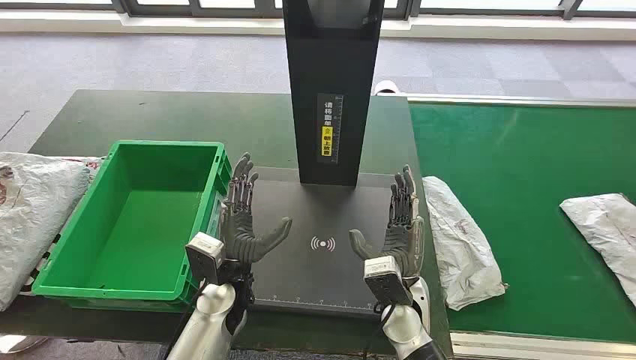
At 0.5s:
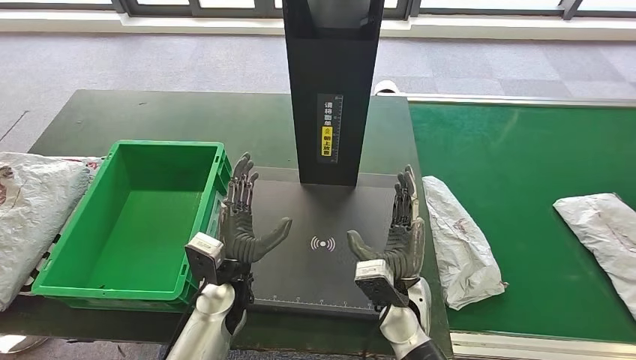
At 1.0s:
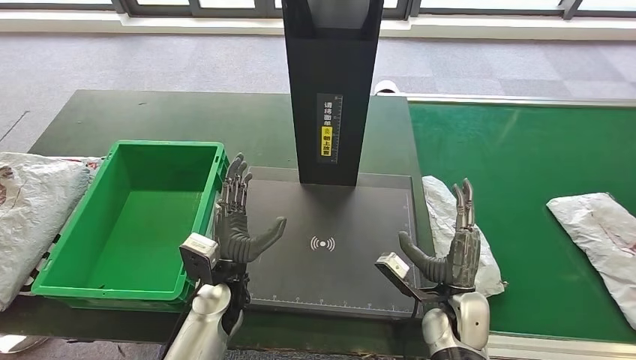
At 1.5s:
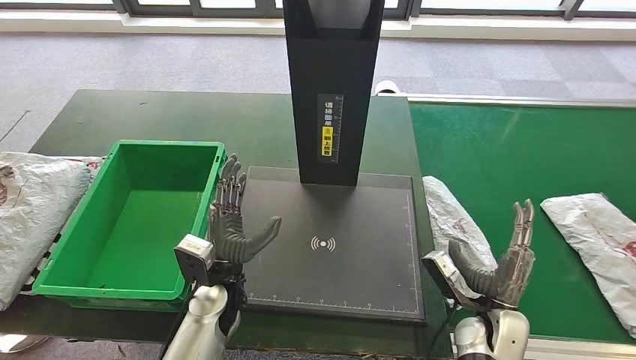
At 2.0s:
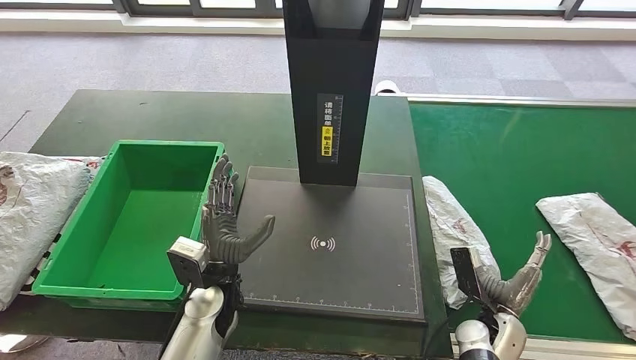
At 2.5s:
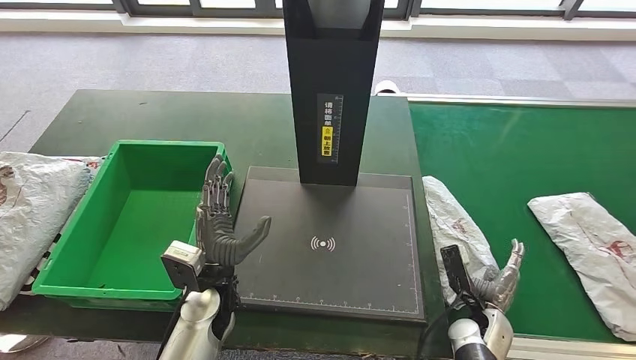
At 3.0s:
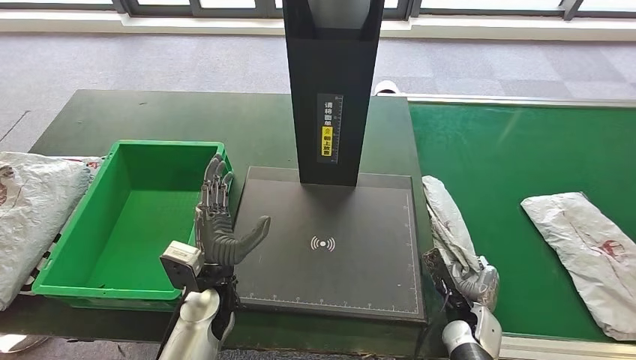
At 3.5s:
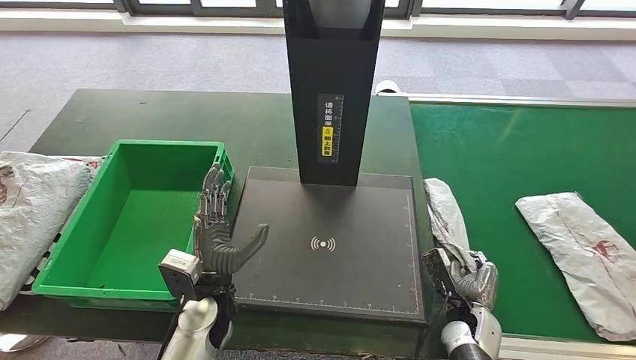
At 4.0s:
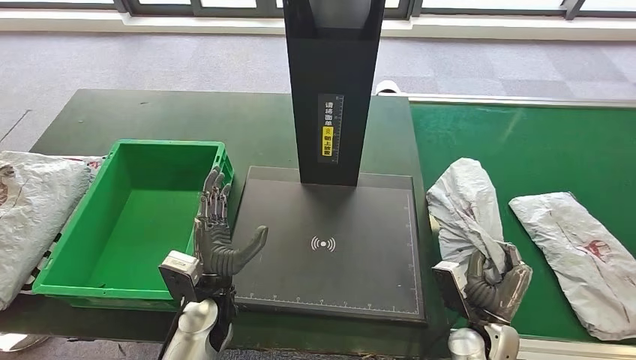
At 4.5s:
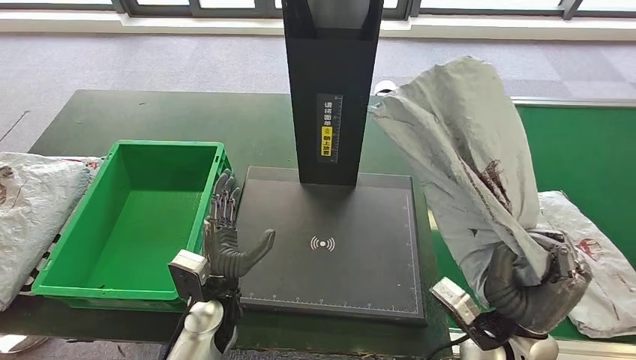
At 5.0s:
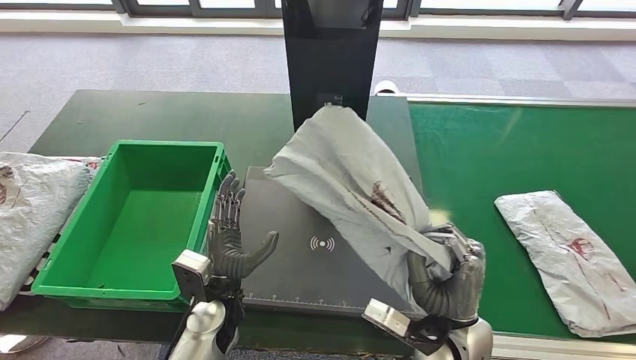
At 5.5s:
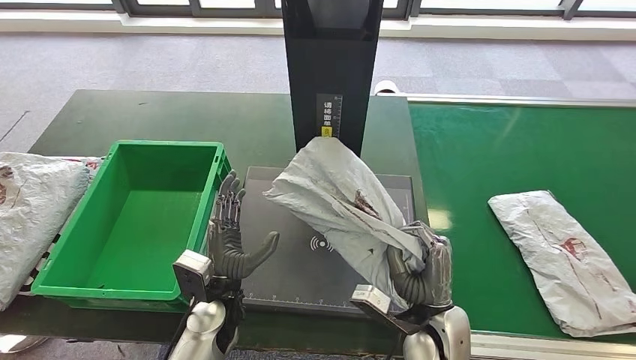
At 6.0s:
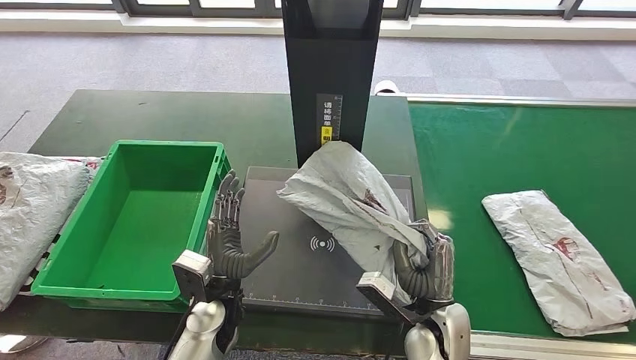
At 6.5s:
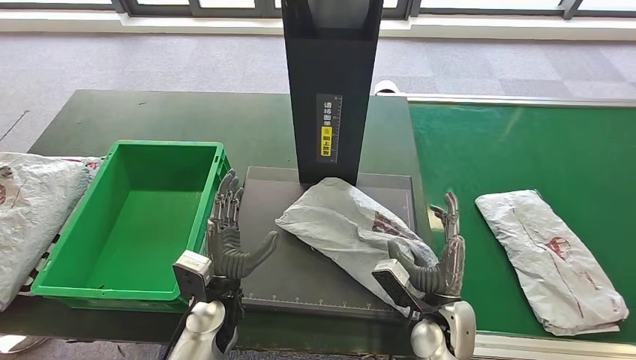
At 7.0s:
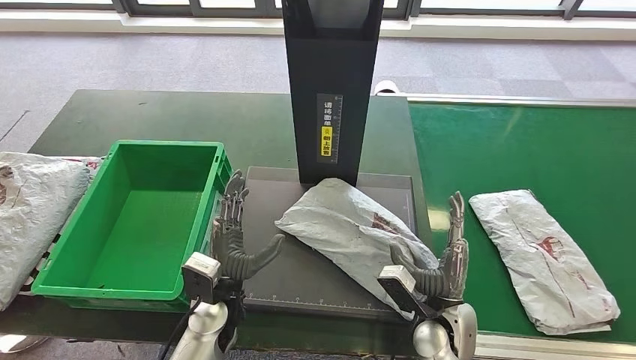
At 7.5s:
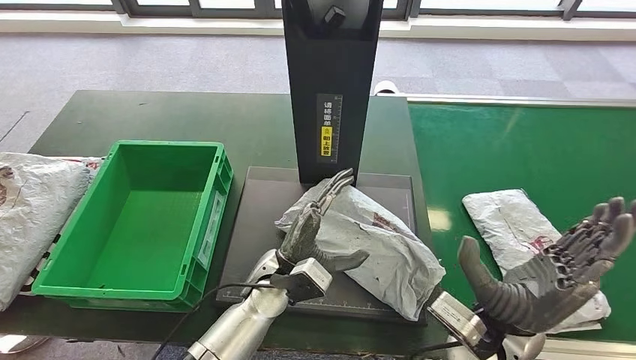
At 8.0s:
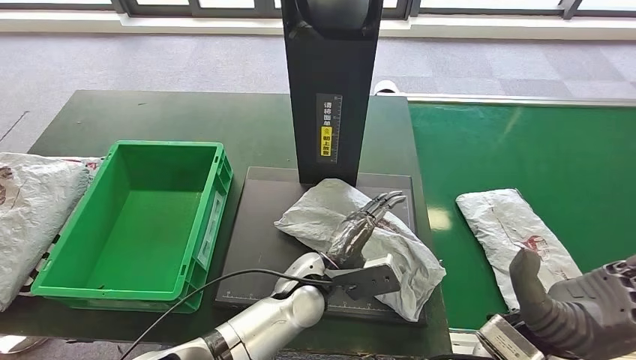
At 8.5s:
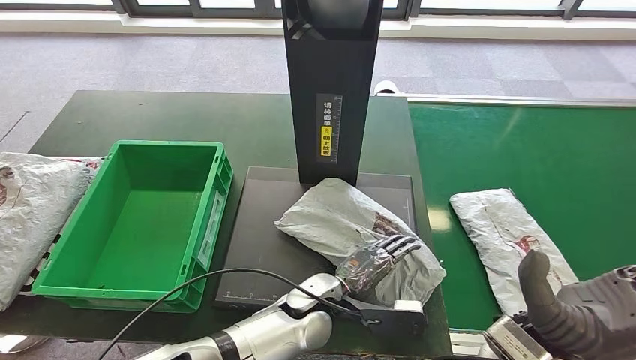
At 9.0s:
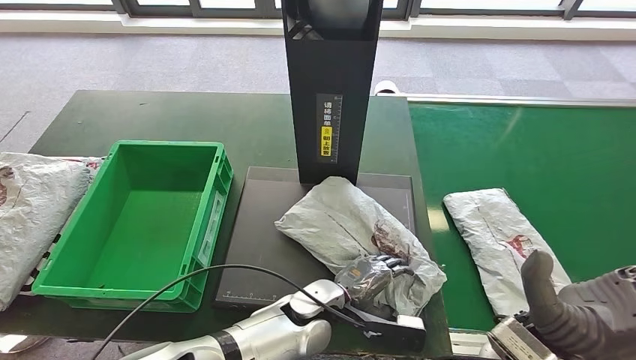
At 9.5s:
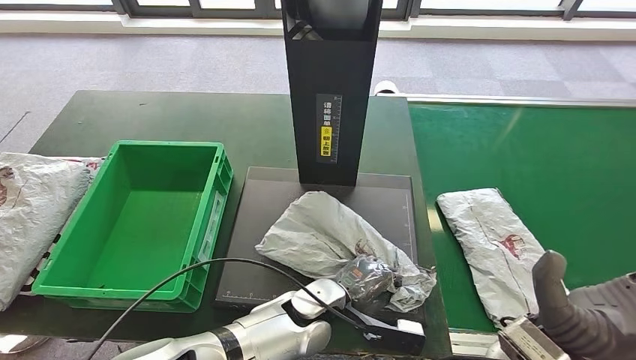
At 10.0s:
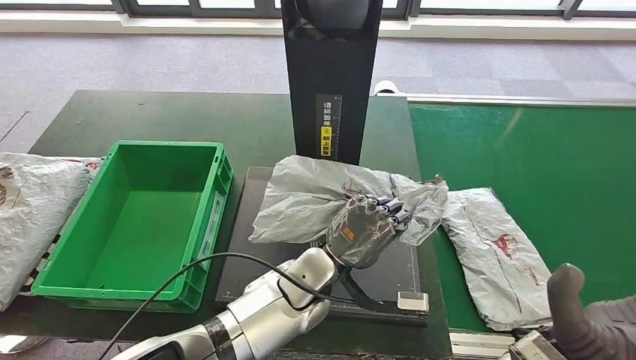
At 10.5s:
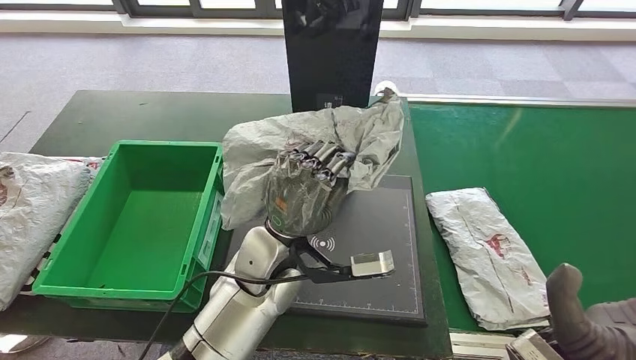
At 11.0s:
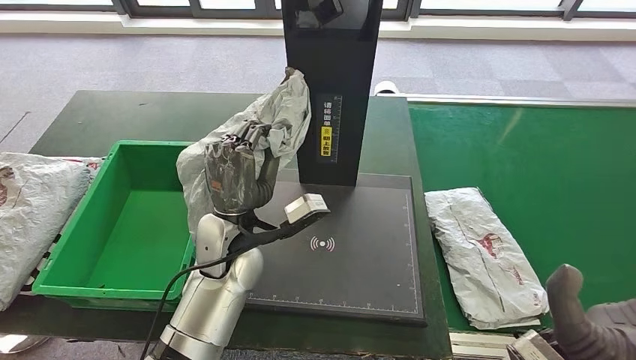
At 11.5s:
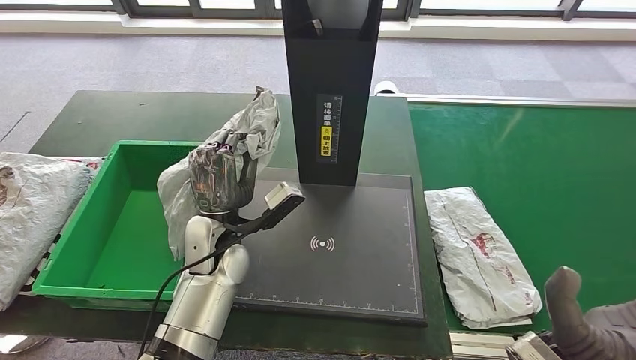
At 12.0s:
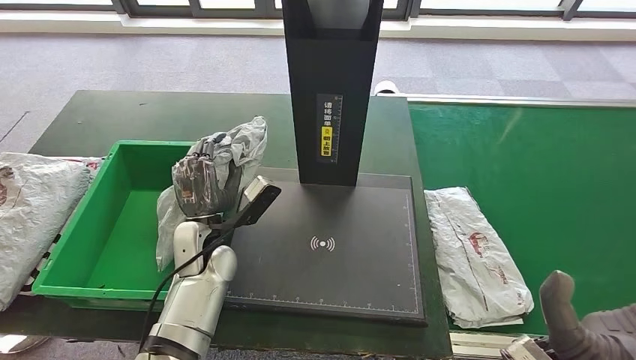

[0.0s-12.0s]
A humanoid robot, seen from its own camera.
Step, 0.0s to 2.0s: Pick up the parcel from the conveyor belt.
Step, 2.5s to 4.5s: Take the parcel off the conveyor belt.
Step, 5.0s to 7.0s: Place the parcel onto the inbound machine.
Step, 7.5s to 10.0s: Pick up the parcel from the inbound machine.

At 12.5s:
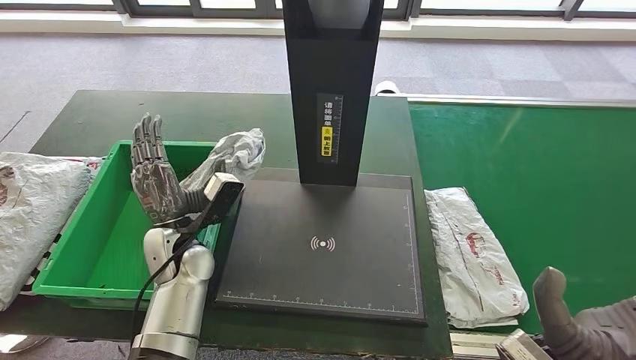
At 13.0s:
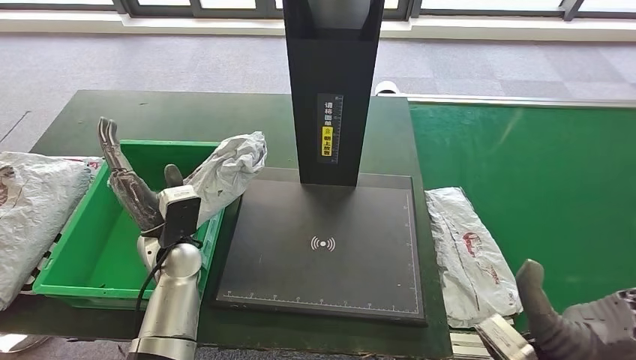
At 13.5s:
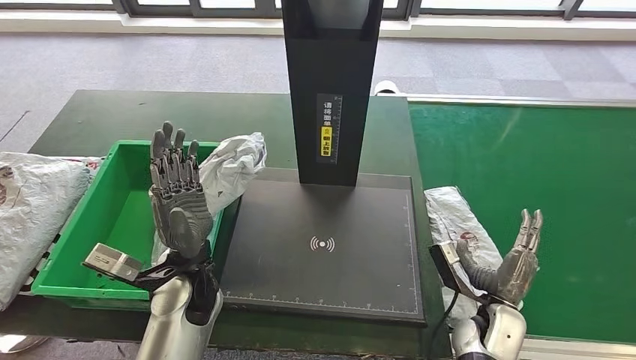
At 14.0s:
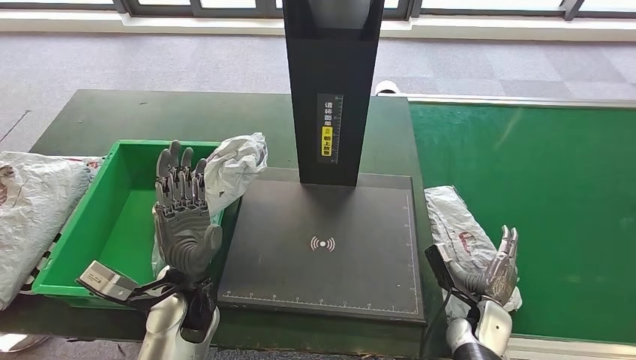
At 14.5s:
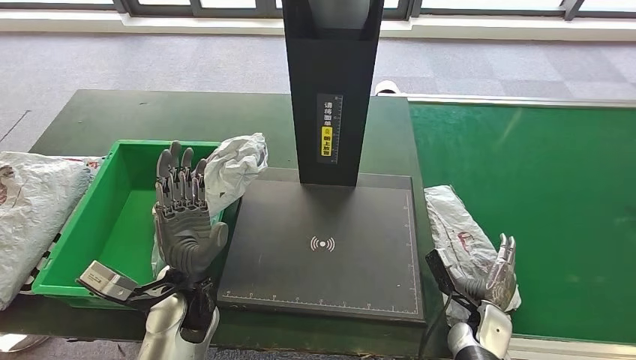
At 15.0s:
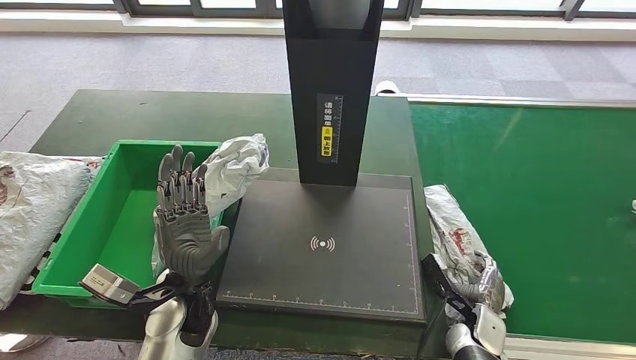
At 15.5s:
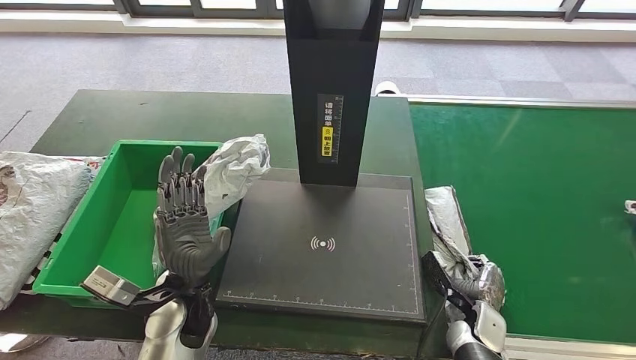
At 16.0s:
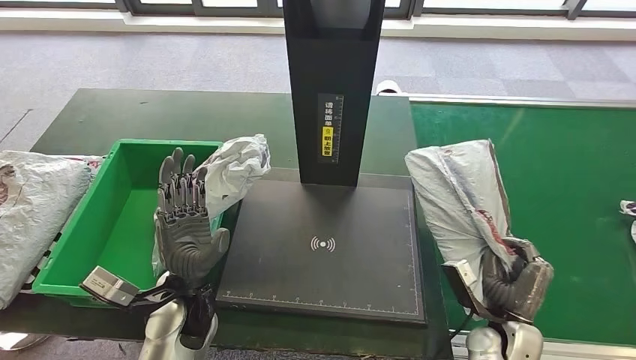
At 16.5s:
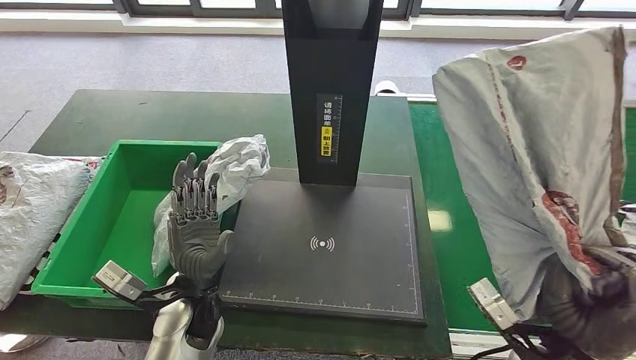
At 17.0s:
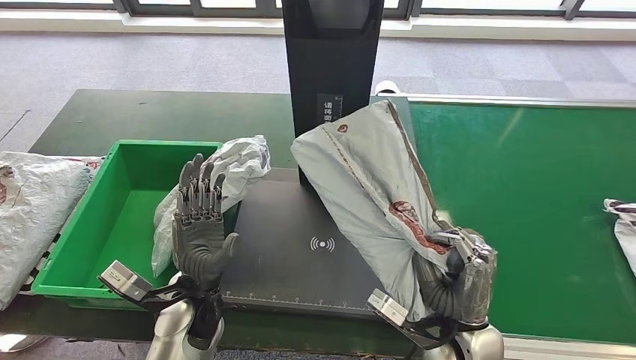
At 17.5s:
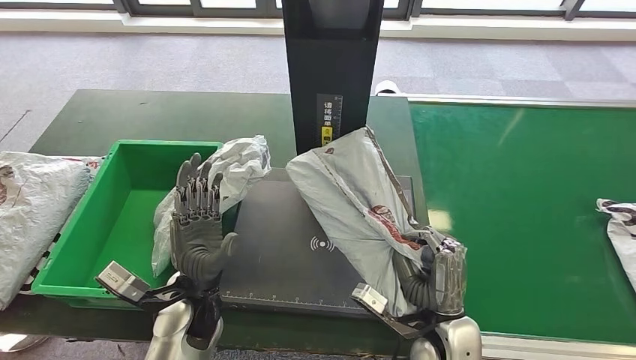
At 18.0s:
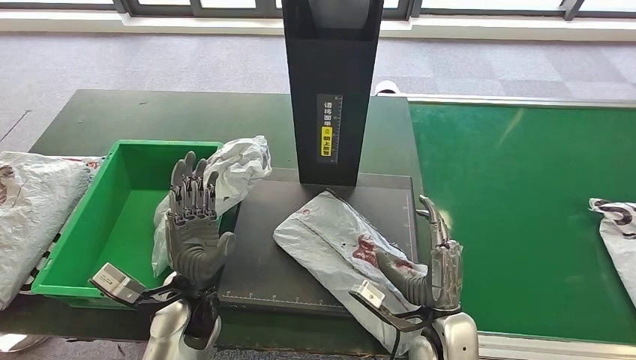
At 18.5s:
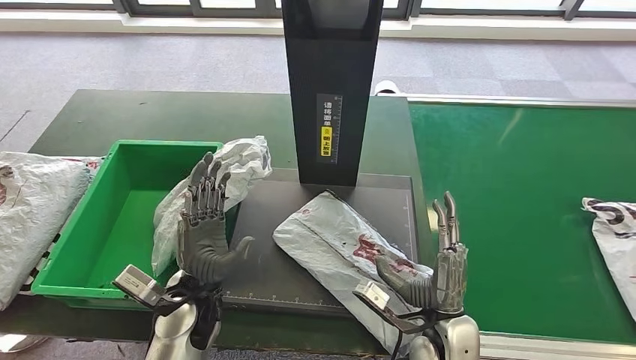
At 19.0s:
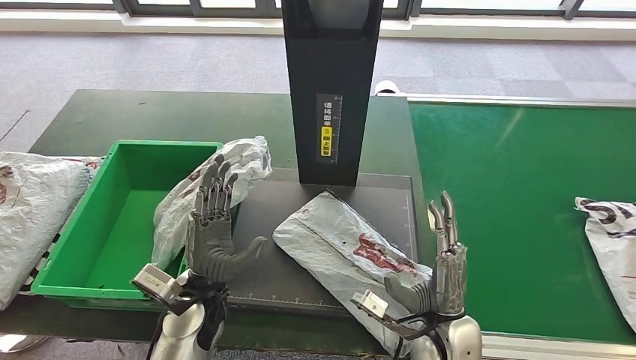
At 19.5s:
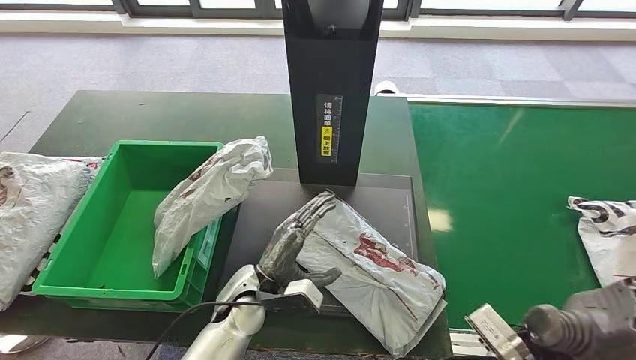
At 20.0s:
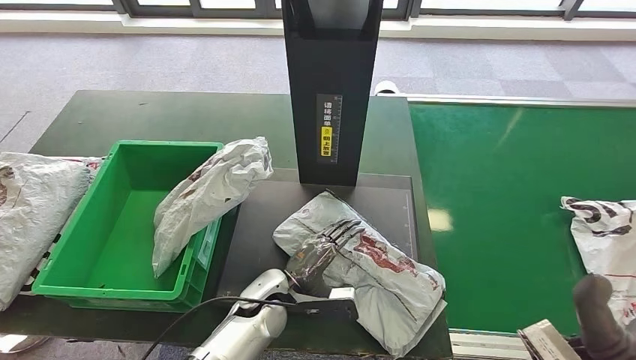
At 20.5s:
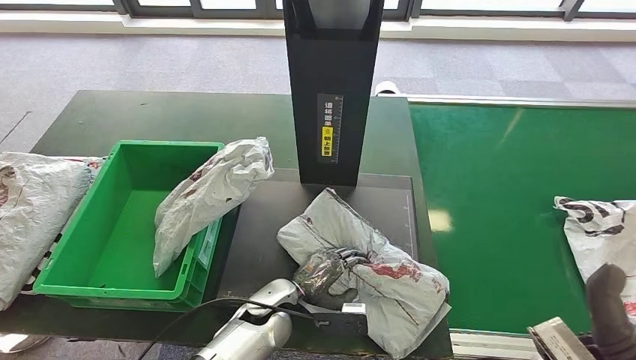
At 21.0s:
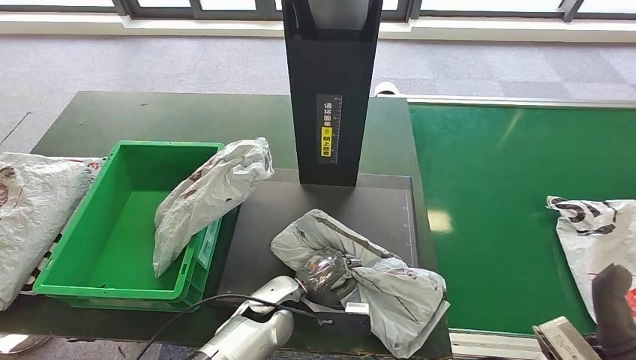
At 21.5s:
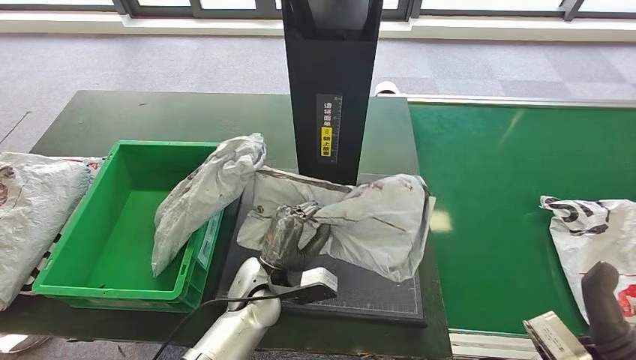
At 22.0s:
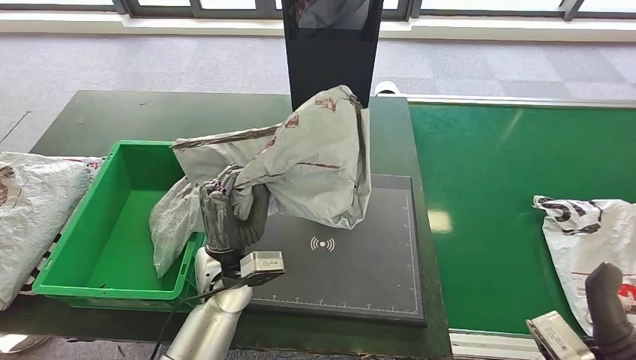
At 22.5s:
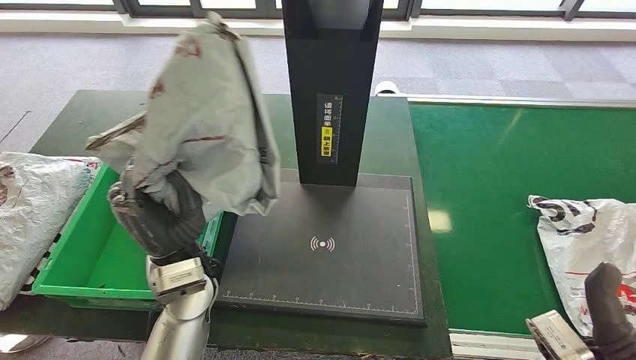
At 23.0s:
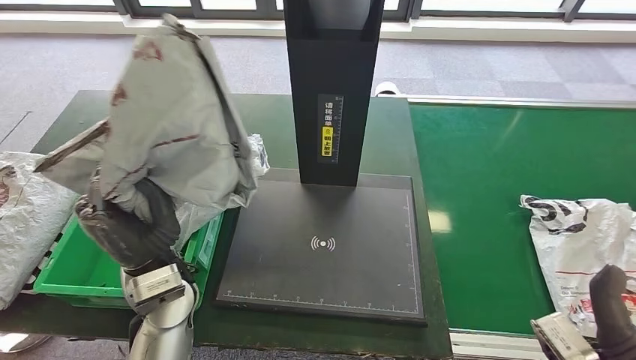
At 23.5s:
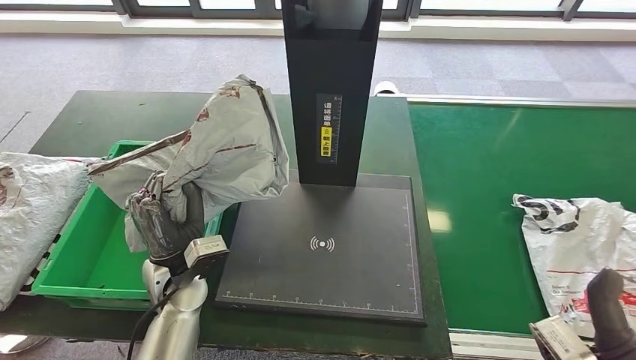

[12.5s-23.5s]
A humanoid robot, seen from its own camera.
Step, 13.5s to 16.5s: Pick up the parcel from the conveyor belt.
Step, 17.0s to 19.0s: Place the parcel onto the inbound machine.
Step, 19.5s to 21.5s: Pick up the parcel from the inbound machine.
Step, 22.0s to 23.5s: Place the parcel into the delivery box.
12.5s to 14.5s: The right hand travels downward by roughly 20 cm, while the left hand travels backward by approximately 5 cm.
14.5s to 16.0s: The right hand moves some 5 cm.
18.0s to 20.0s: The right hand moves upward and to the right, roughly 15 cm, while the left hand goes about 10 cm to the right and downward.
